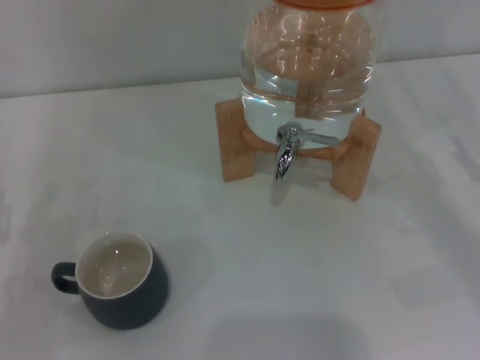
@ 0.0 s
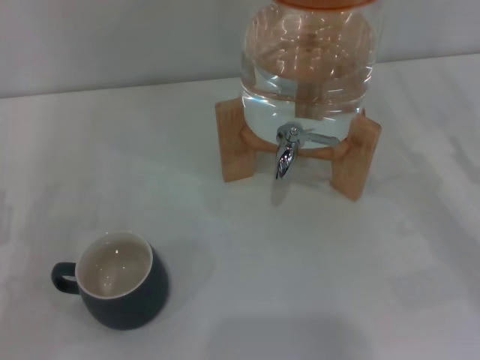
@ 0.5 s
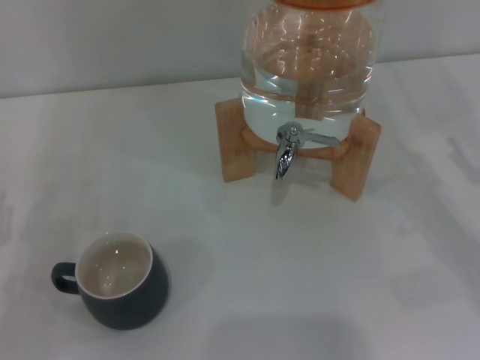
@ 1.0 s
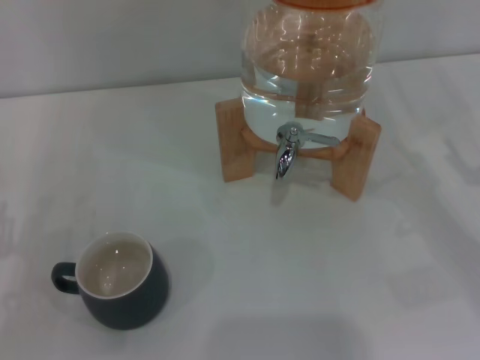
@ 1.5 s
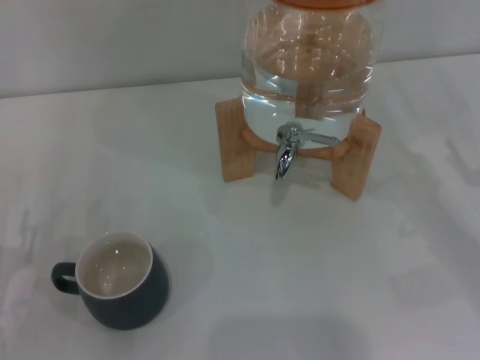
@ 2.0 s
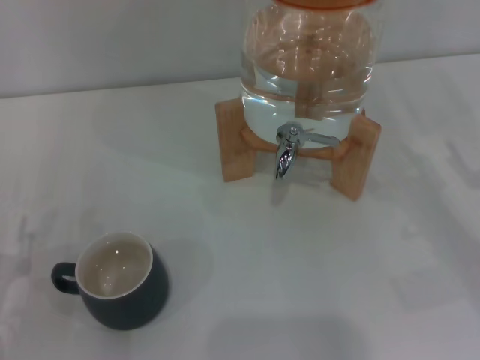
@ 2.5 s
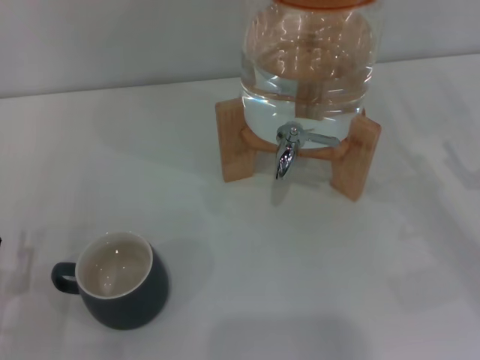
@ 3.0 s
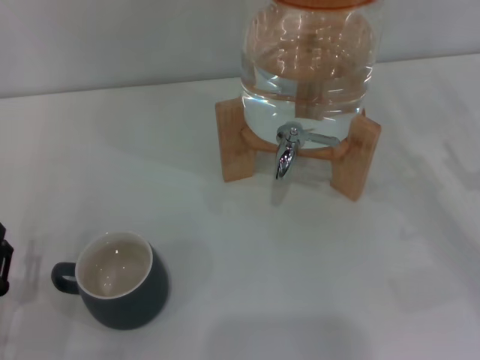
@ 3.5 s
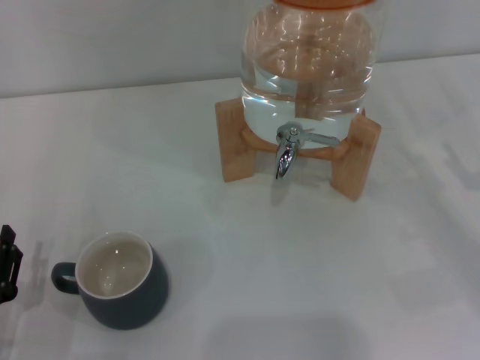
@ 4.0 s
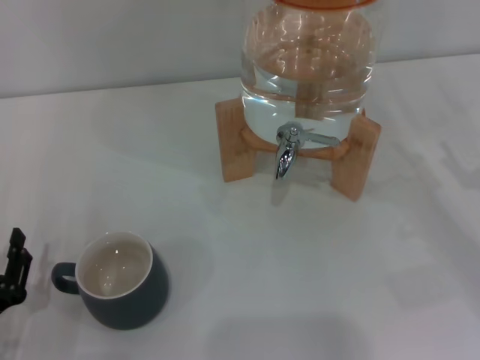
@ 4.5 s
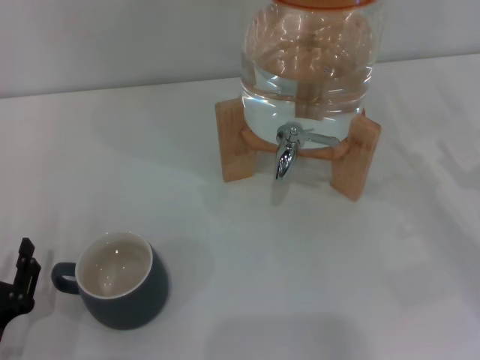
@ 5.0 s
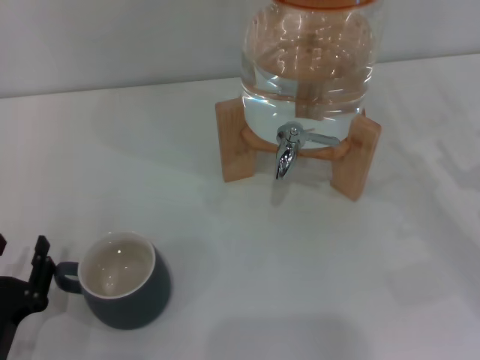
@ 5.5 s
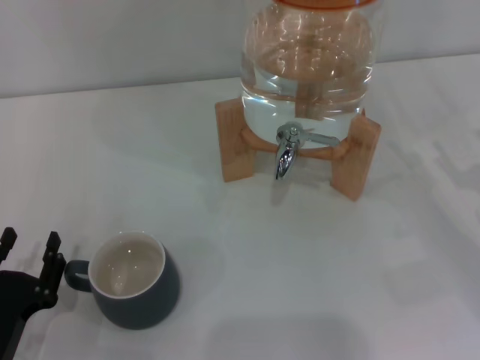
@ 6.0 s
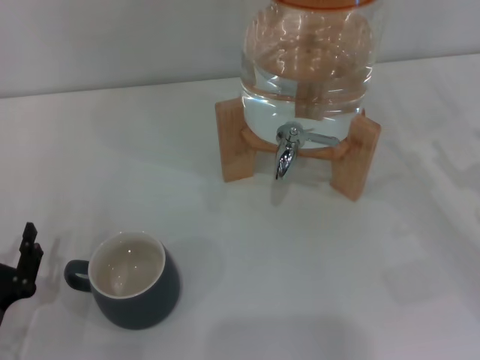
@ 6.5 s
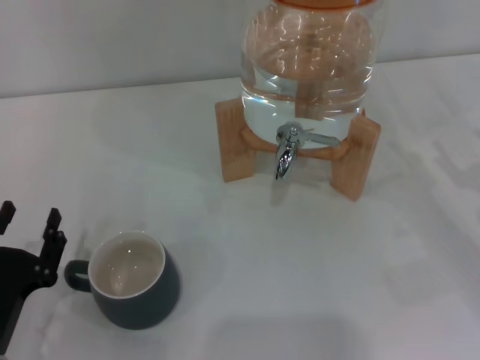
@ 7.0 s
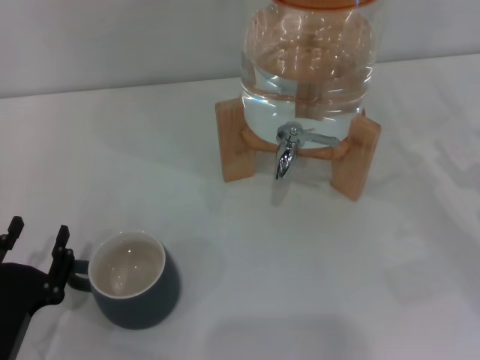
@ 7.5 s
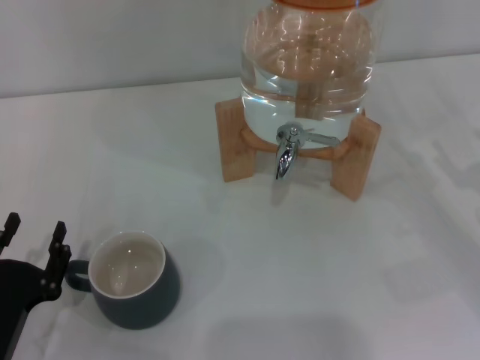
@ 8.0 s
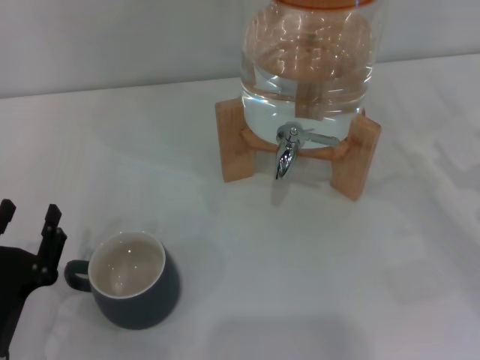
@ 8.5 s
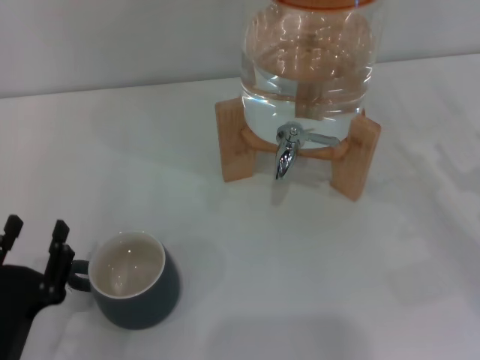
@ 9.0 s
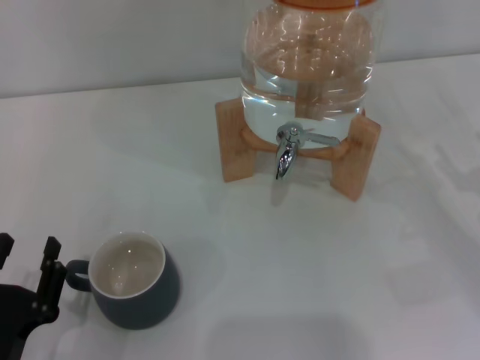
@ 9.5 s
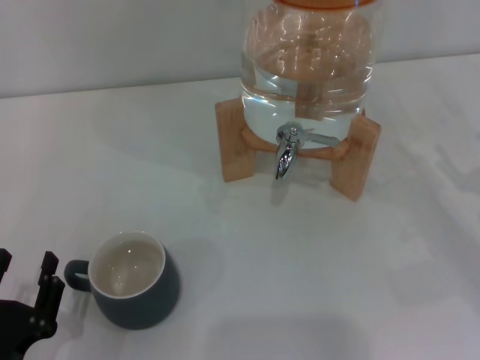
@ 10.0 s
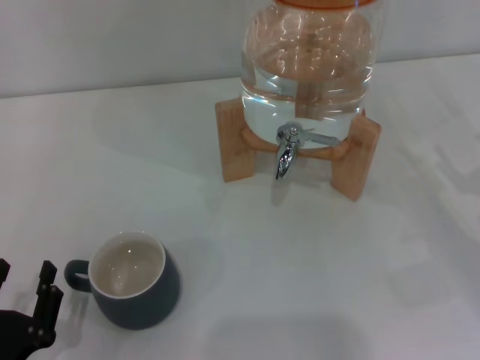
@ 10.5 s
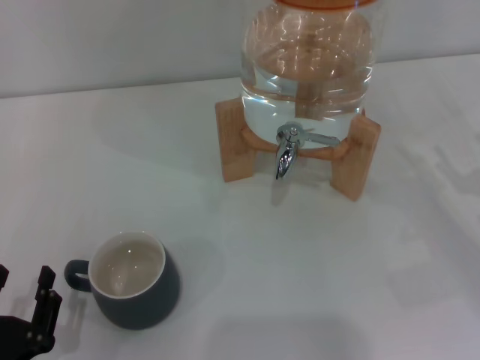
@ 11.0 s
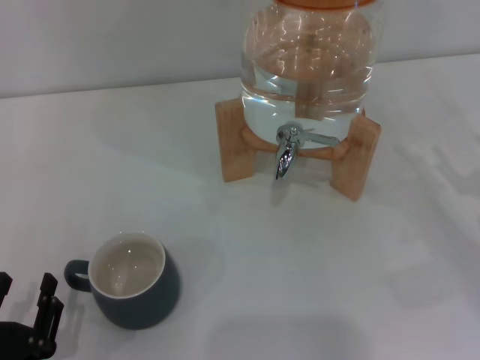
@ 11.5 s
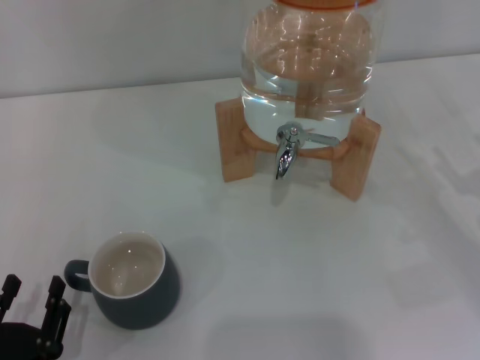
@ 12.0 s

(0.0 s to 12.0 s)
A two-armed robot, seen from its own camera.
Task of the whole recording: the left gripper pick up the black cup and place it horizontally under the faucet, the right gripper turn on the faucet to fill the cup, and then turn off the faucet.
4.0 s - 10.0 s: The grippers make only small movements.
10.0 s - 12.0 s: The grippers stay close to where they were, moving slightly.

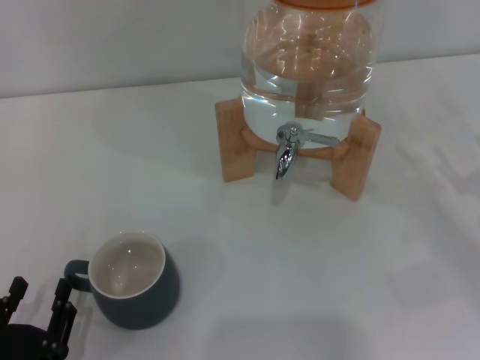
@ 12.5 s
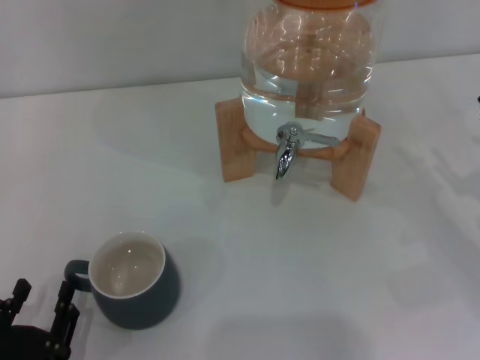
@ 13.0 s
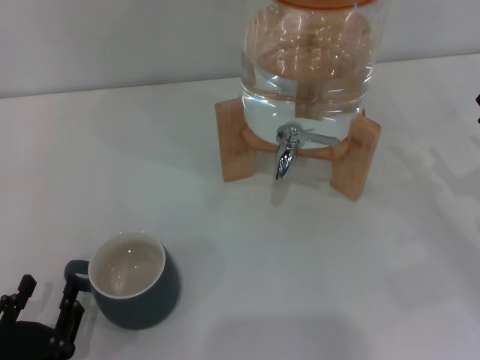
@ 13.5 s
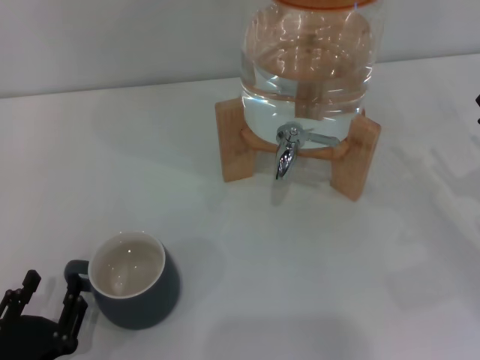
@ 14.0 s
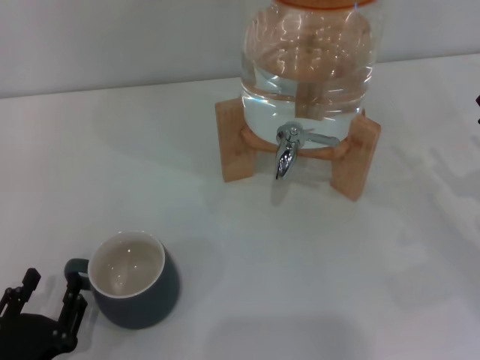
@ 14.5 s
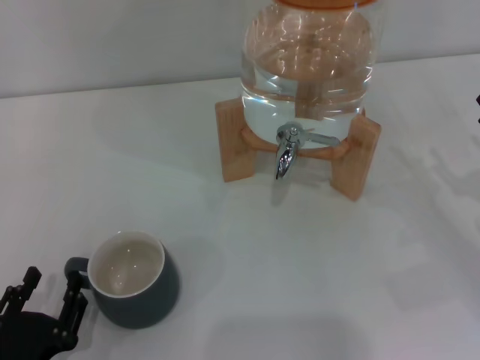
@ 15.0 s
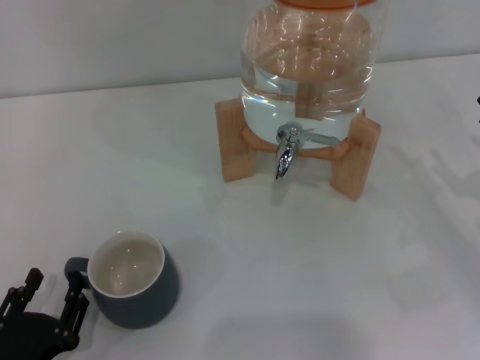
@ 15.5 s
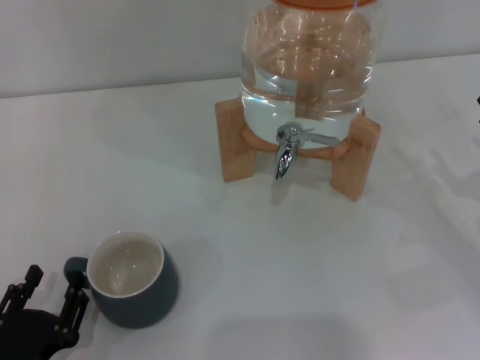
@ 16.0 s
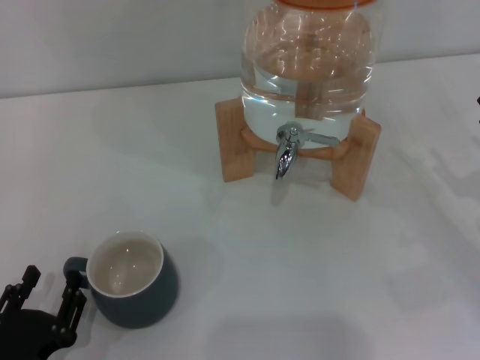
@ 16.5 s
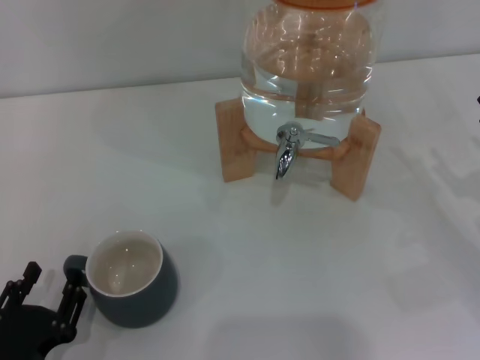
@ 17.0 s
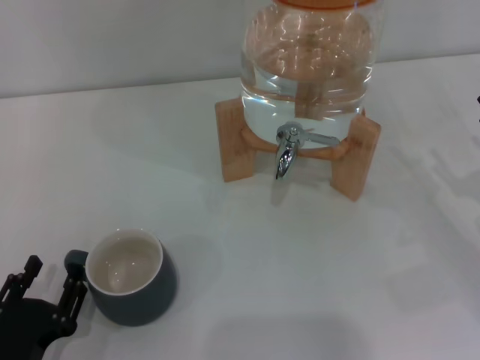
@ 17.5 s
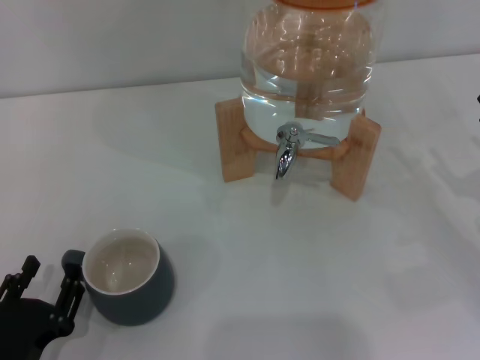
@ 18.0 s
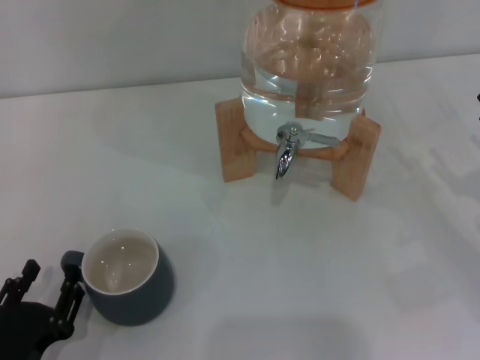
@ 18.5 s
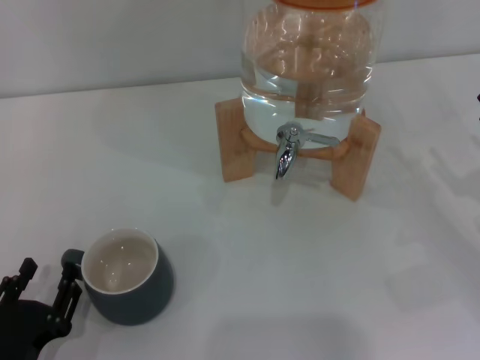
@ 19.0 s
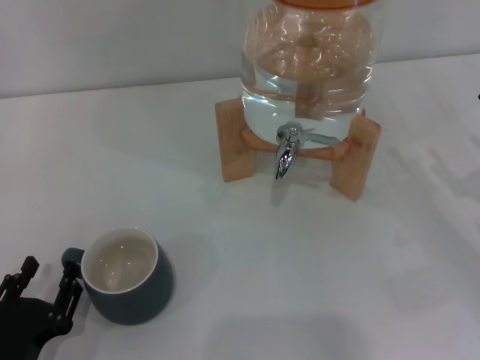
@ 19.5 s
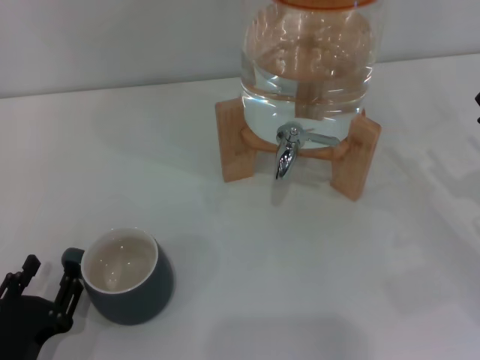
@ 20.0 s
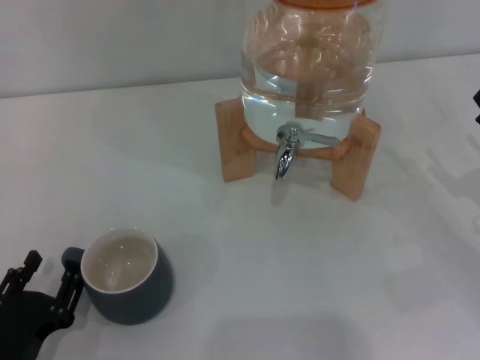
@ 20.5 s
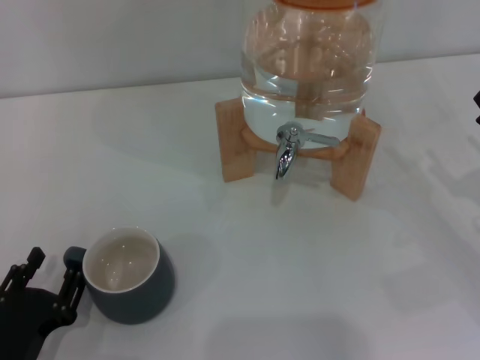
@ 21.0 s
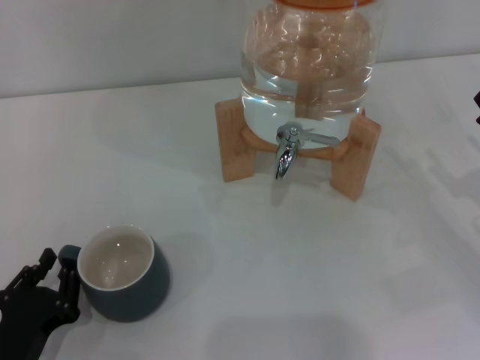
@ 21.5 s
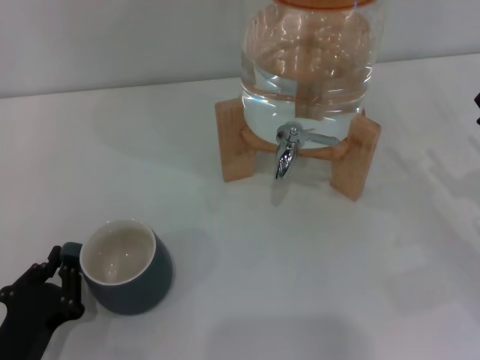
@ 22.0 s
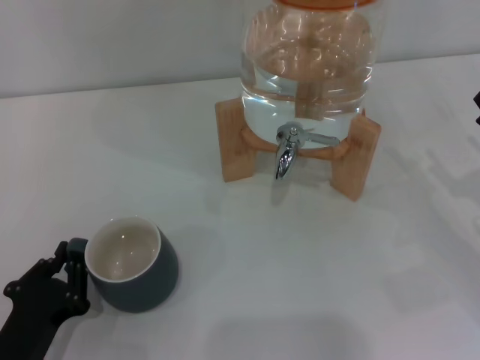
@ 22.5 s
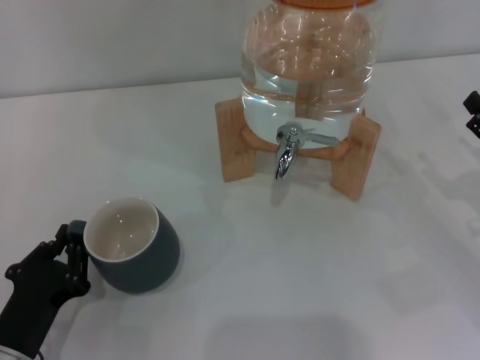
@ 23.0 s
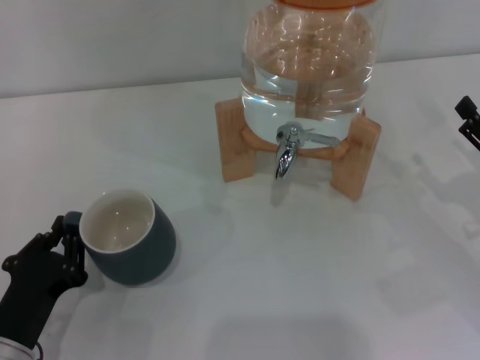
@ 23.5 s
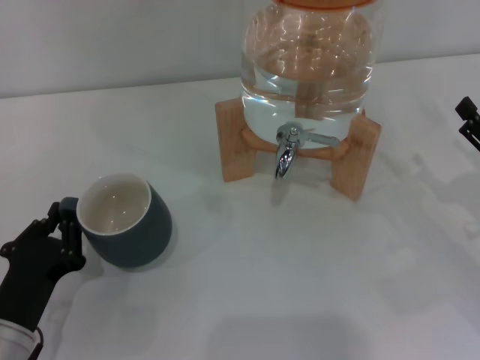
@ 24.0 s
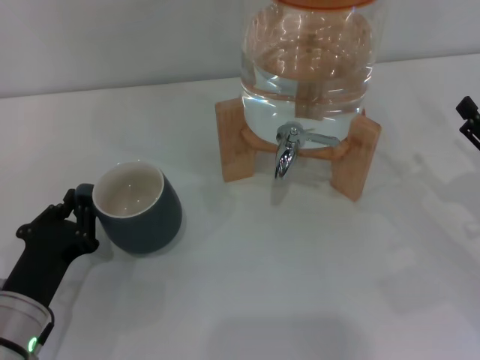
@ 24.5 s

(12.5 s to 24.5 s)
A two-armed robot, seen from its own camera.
Task of the whole recording: the left gripper pick up the black cup and place it horizontally under the faucet, the right gripper turn on the faucet to fill the cup, and then turn off the faucet.
12.5 s - 14.5 s: Both grippers stay put.
14.5 s - 16.5 s: Both grippers stay about where they are.
16.5 s - 18.5 s: The grippers make only small movements.
18.5 s - 20.5 s: Both grippers stay about where they are.
20.5 s - 22.5 s: The left gripper closes.
22.5 s - 24.5 s: The left gripper heads forward, covering some 5 cm.

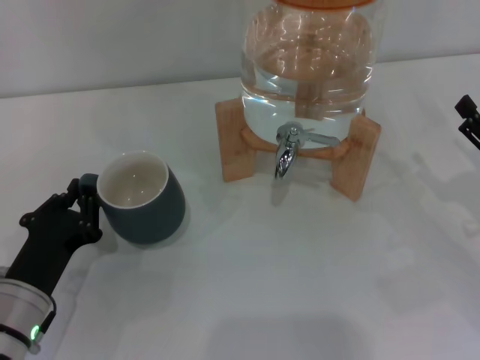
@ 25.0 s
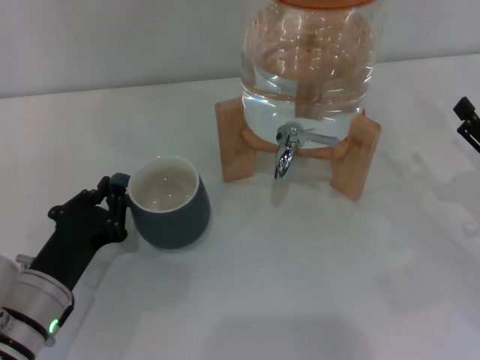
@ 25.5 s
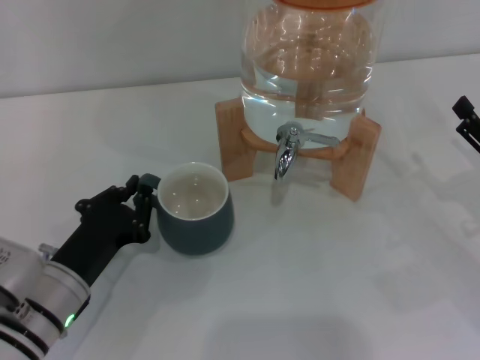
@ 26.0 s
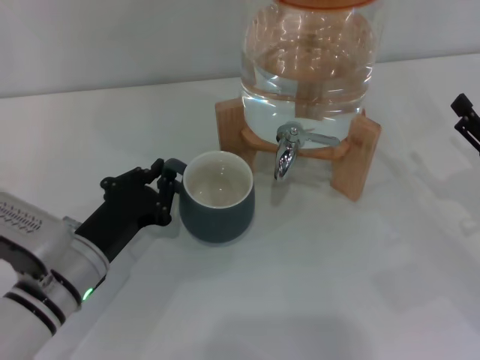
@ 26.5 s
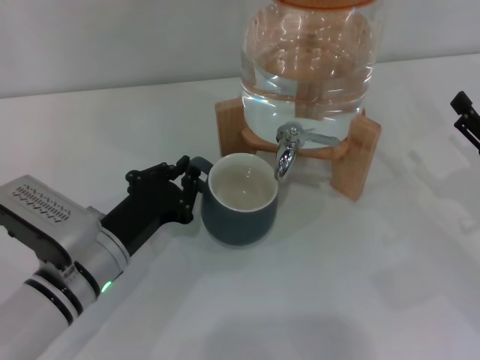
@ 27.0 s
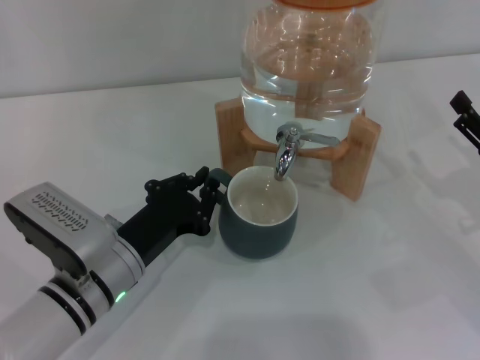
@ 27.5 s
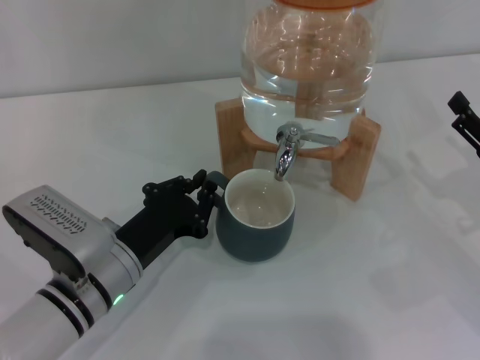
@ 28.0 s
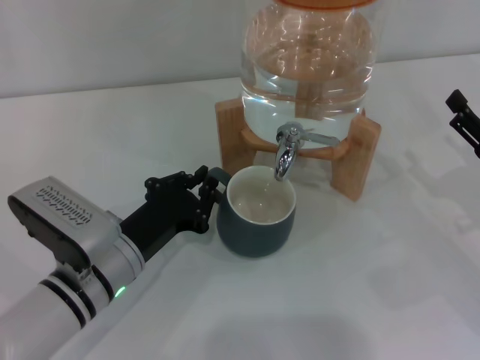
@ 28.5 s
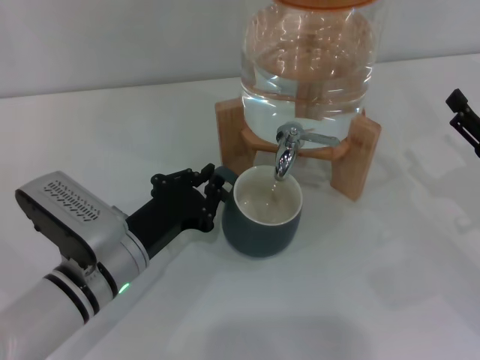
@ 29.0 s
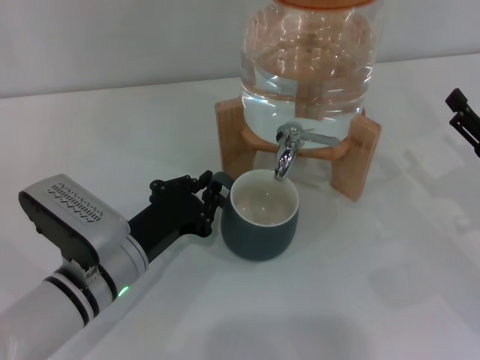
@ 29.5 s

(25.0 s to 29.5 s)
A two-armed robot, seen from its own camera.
Task of the whole recording: the left gripper pick up the black cup and place it horizontally under the faucet, the right gripper turn on the faucet to fill the cup, and then turn off the faucet.
25.0 s - 27.0 s: The left gripper goes about 5 cm to the right.
27.0 s - 29.5 s: The grippers make only small movements.
